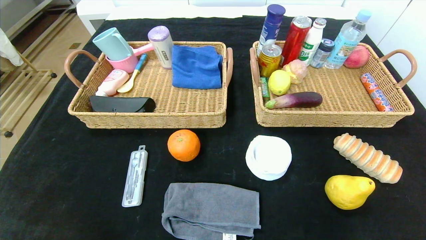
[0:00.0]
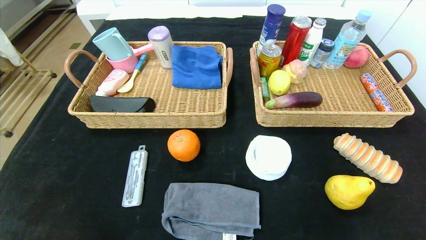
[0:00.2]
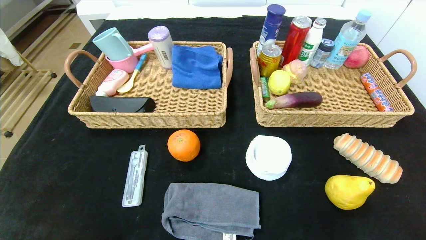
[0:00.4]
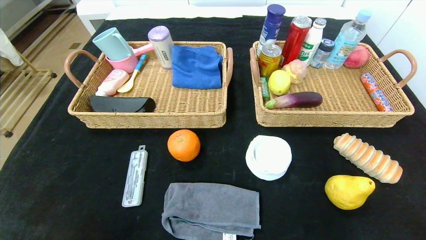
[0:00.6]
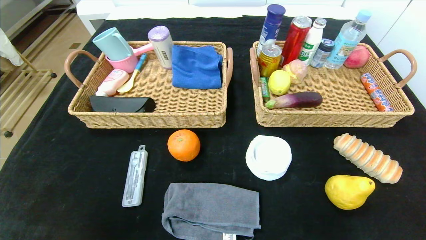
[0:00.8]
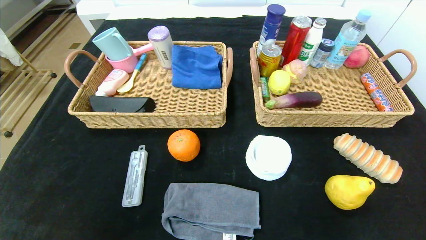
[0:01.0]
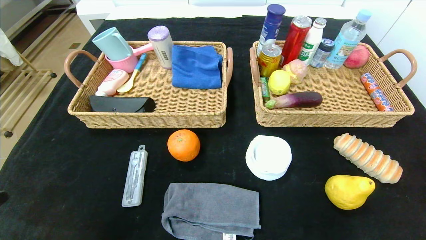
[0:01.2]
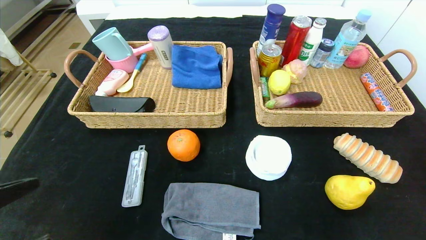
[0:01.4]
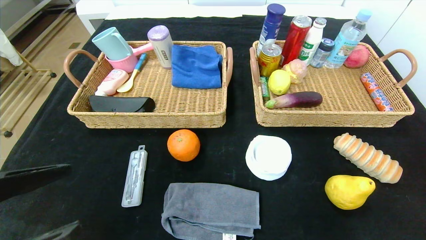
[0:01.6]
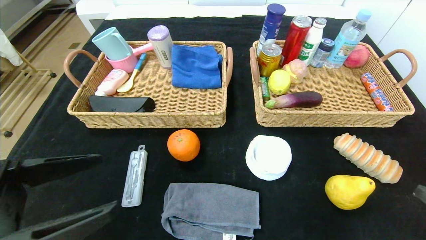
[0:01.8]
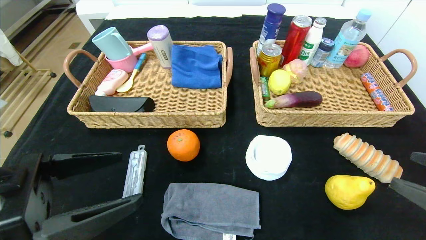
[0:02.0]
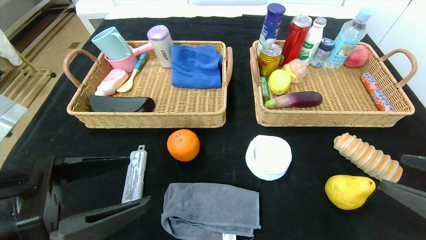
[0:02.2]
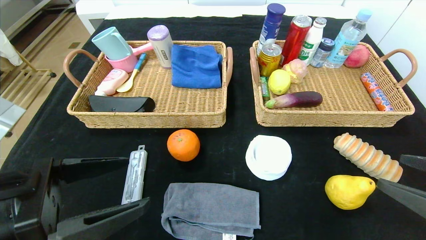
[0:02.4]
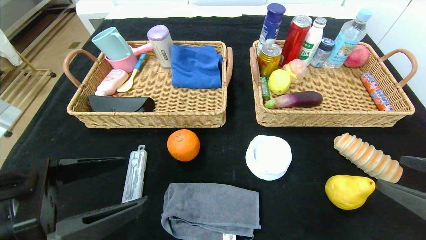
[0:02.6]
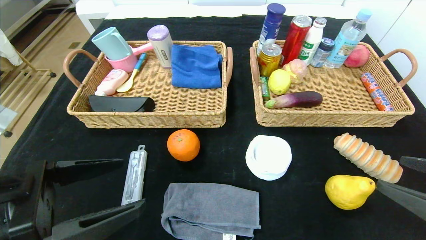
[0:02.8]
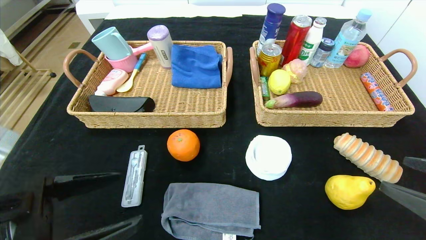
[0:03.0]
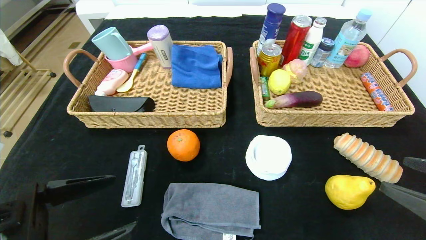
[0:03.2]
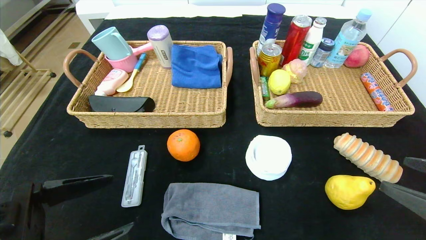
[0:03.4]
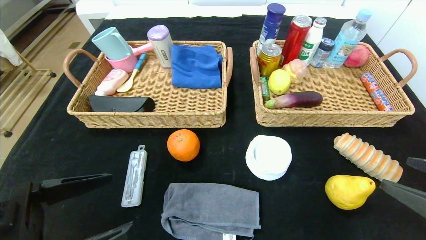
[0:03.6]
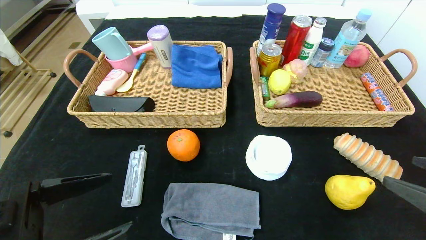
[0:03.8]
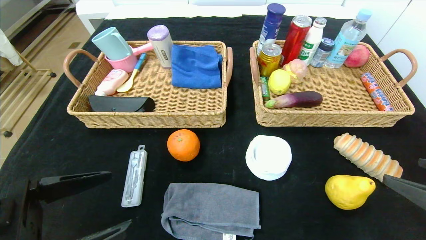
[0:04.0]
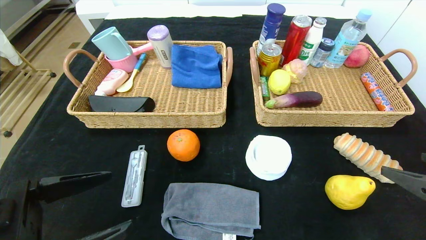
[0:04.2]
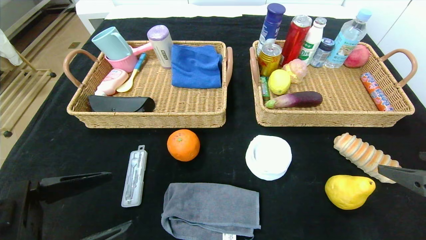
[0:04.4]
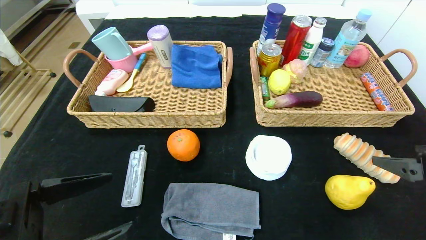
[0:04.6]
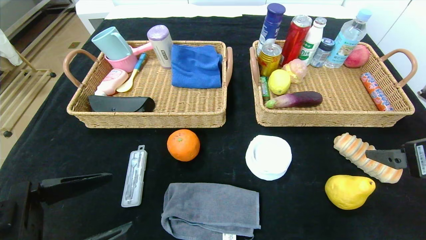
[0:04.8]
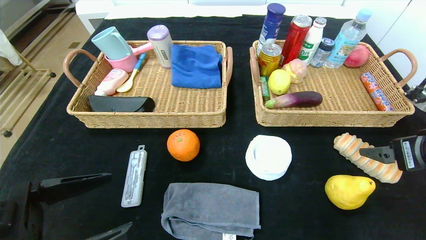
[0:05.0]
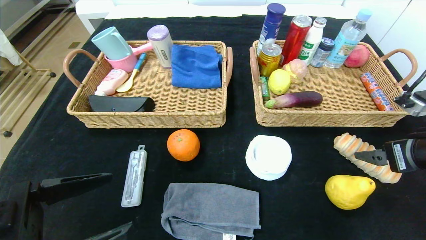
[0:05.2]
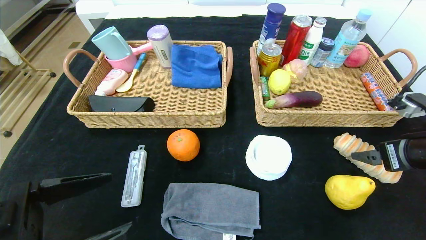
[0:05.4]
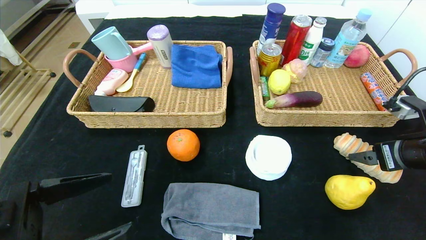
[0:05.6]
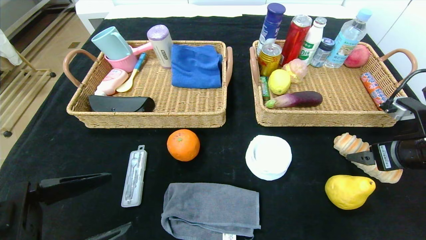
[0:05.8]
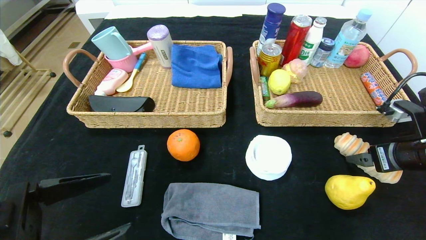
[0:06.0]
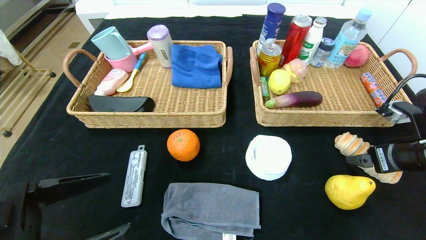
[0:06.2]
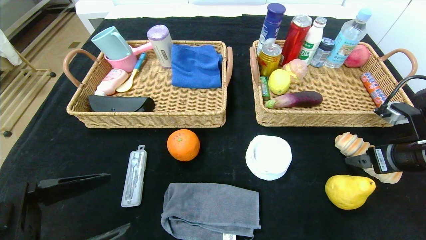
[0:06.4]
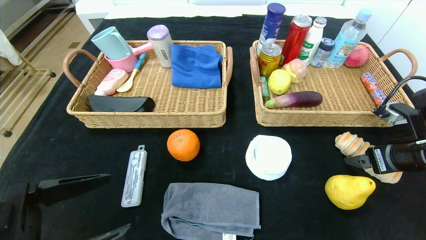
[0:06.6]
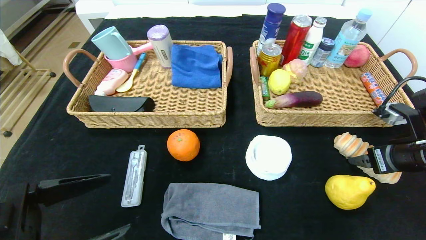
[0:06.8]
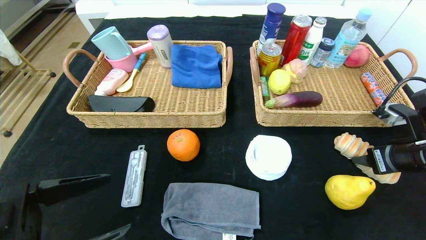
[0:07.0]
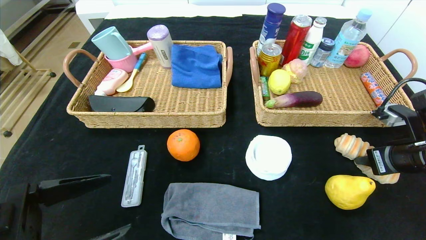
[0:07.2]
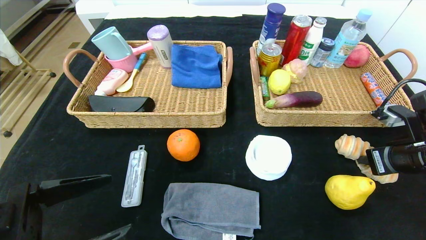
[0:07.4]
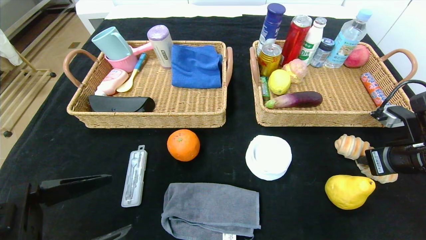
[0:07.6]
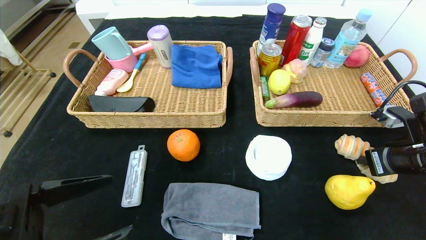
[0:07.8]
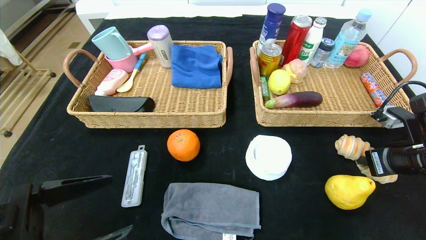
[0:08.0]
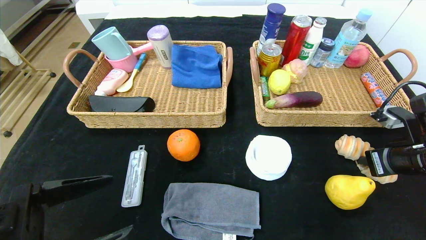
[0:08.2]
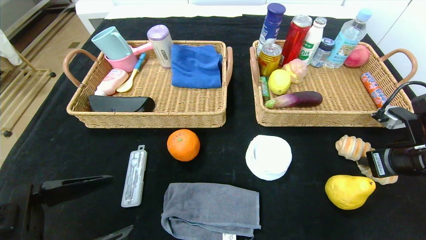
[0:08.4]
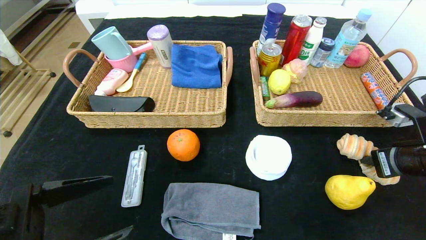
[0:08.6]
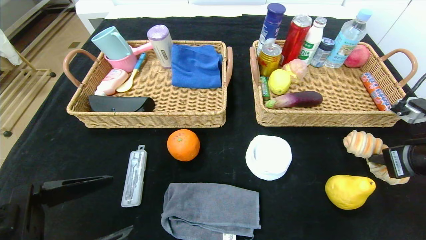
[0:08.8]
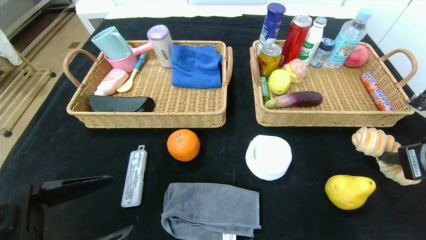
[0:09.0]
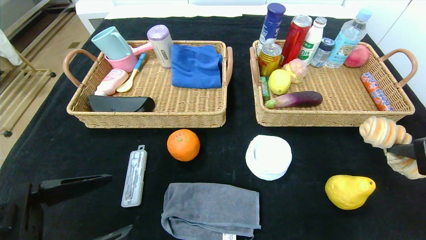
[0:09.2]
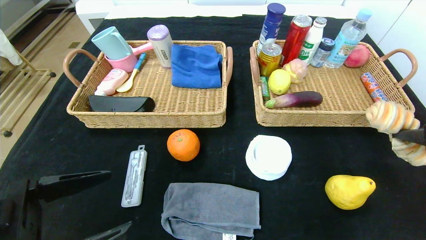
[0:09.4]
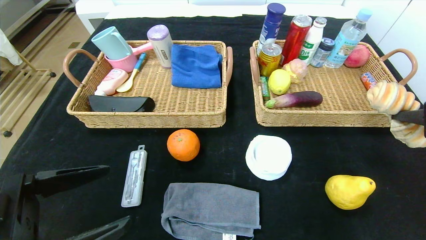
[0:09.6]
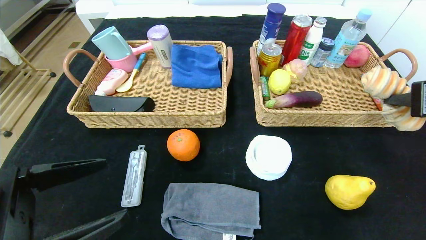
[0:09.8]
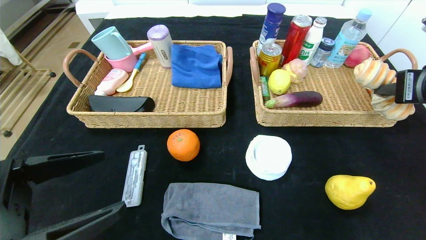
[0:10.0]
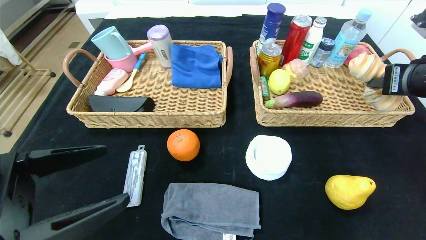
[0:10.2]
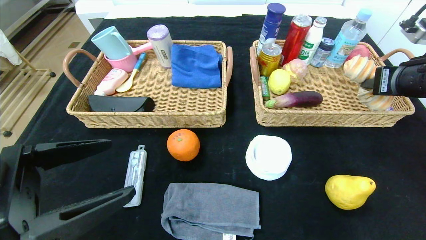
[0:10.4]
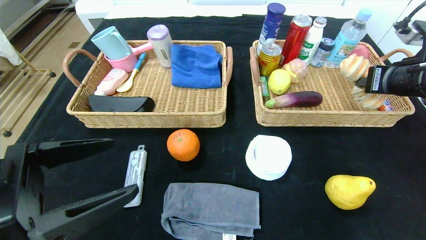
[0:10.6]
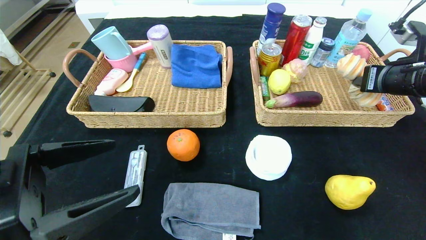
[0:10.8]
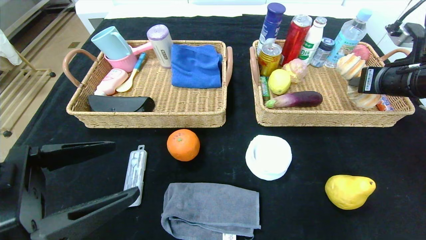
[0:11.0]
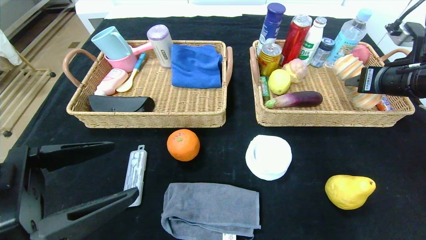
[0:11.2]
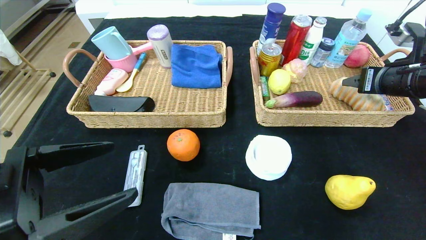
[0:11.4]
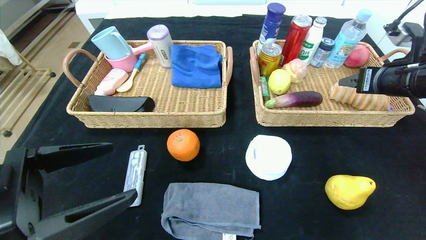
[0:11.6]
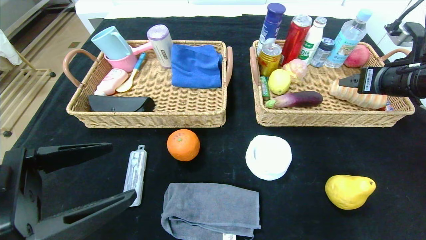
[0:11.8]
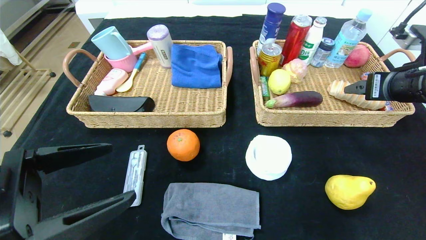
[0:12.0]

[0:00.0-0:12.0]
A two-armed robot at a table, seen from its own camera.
Step, 0:00.0 to 0:11.6: Grasp the long bread and put it in the right basket.
0:00.0 to 0:01.6: Both grippers travel together upward and forward, approximately 20 cm.
0:01.6 to 0:03.0: The right gripper shifts by approximately 5 cm.
0:04.4 to 0:06.0: The right gripper shifts approximately 10 cm forward.
0:06.0 to 0:07.6: The right gripper closes up.
0:07.6 to 0:09.0: The right gripper shifts roughly 5 cm backward.
0:09.0 to 0:10.4: The right gripper travels forward and upward by about 10 cm.
0:10.4 to 0:12.0: The right gripper opens.

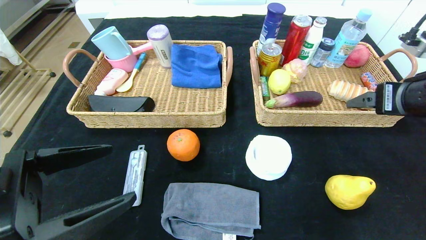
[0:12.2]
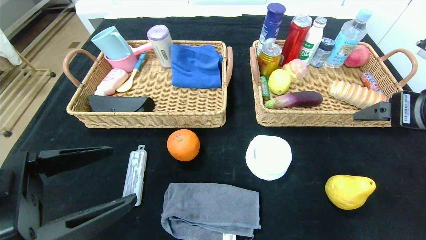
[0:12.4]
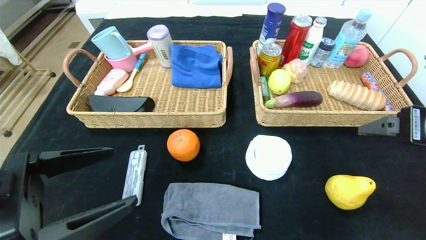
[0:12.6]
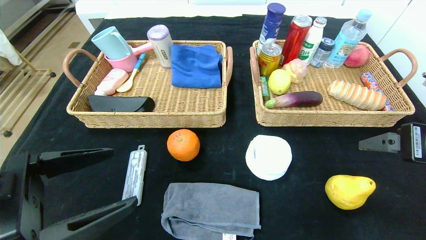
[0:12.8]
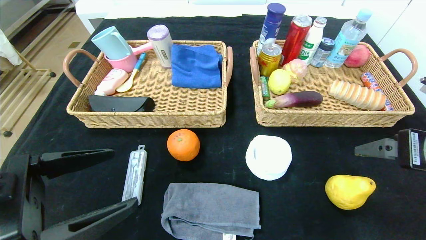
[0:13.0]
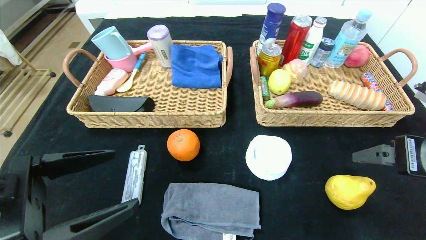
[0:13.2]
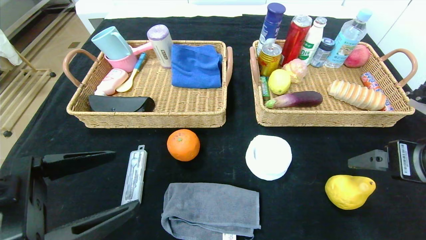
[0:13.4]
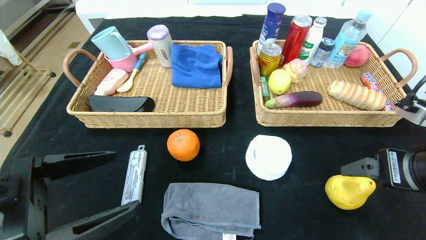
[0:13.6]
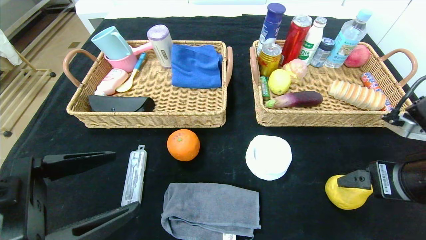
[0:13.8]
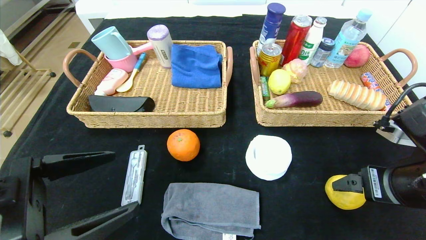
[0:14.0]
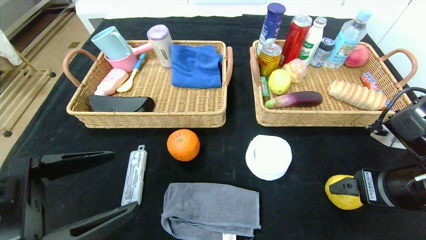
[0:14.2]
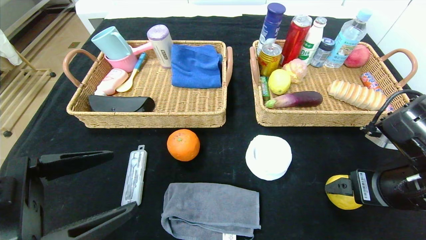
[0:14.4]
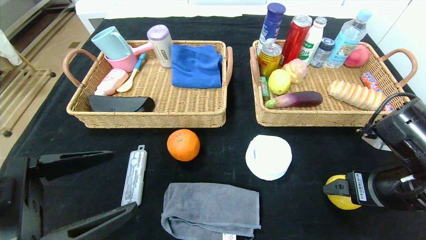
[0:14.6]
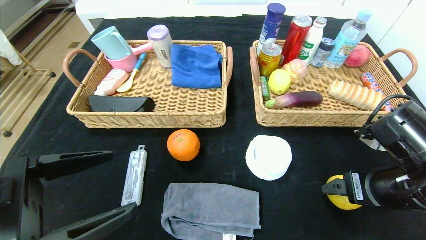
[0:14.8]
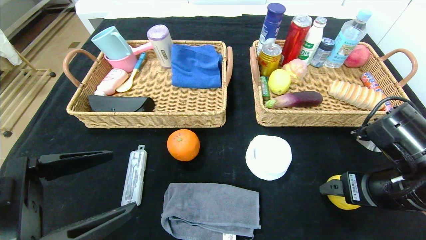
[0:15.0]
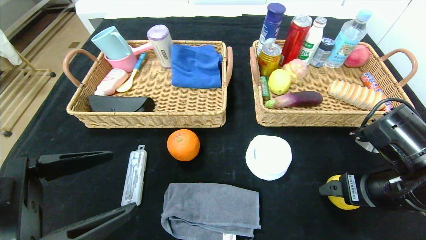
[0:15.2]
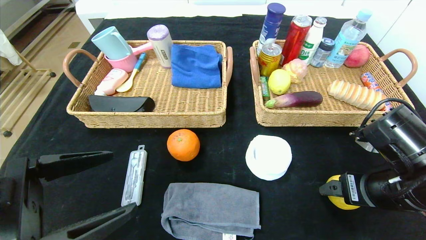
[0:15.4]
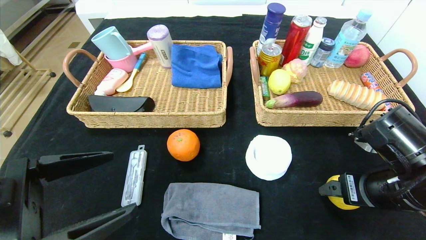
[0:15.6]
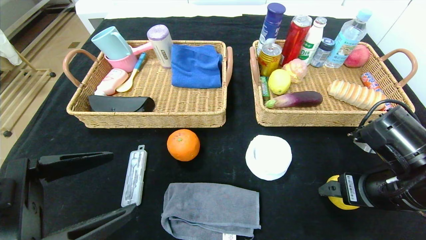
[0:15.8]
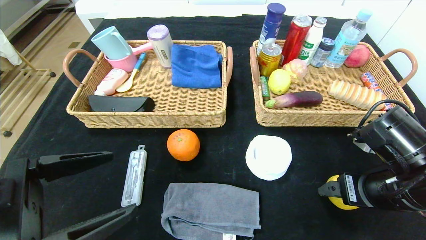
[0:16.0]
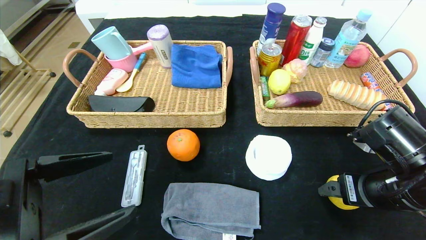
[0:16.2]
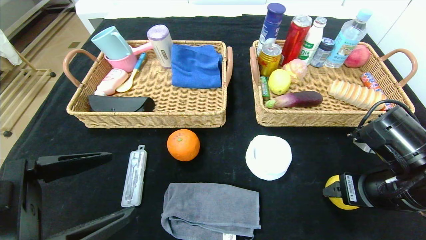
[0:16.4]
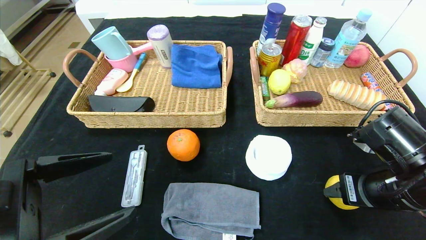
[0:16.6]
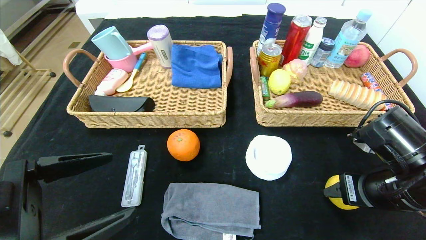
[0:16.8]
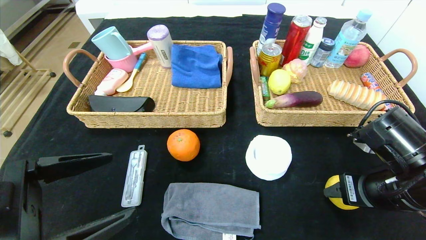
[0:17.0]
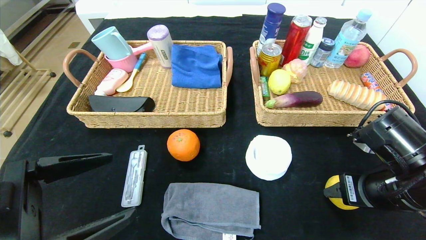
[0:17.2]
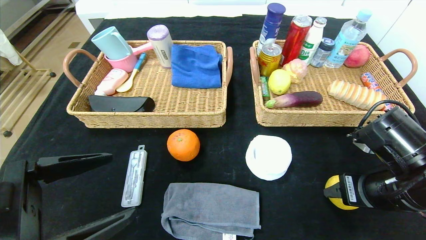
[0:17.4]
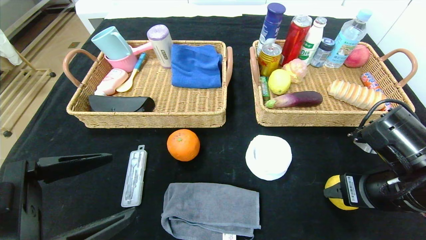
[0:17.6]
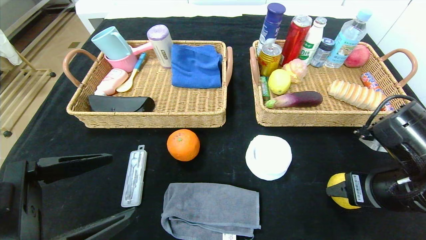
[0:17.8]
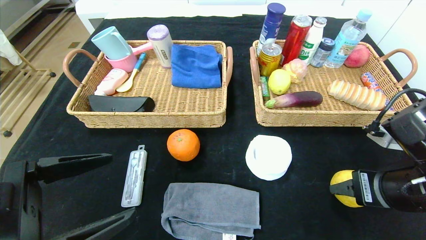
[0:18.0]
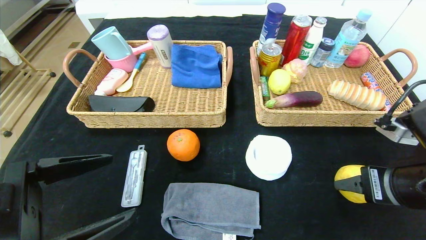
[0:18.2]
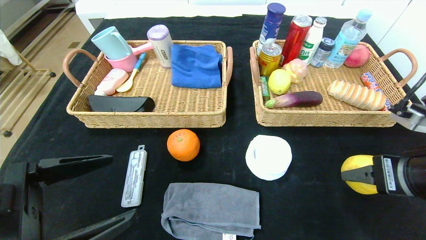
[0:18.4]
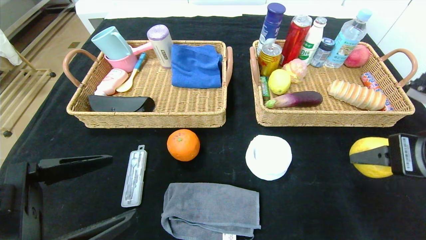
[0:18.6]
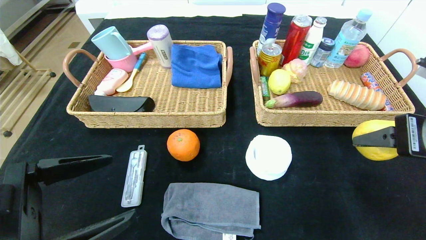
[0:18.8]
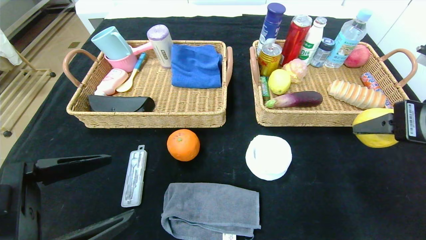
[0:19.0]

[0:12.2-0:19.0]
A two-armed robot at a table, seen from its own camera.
0:12.2 to 0:13.6: The right gripper shifts roughly 10 cm backward and downward.
0:13.6 to 0:15.0: The right gripper heads downward, covering about 5 cm.
0:15.0 to 0:16.2: Both grippers stay put.
0:16.2 to 0:17.6: The right gripper closes.
0:17.6 to 0:19.0: The right gripper heads upward, covering some 10 cm.
